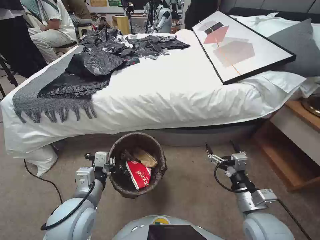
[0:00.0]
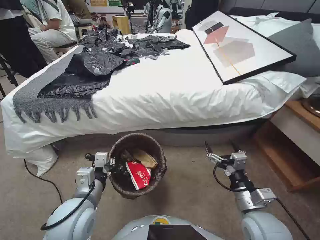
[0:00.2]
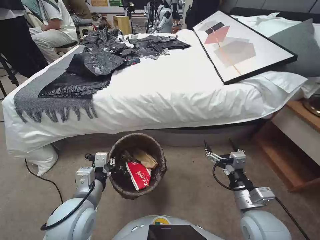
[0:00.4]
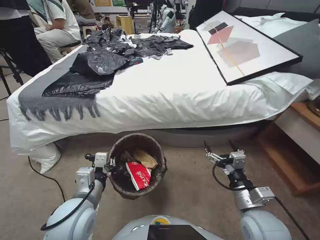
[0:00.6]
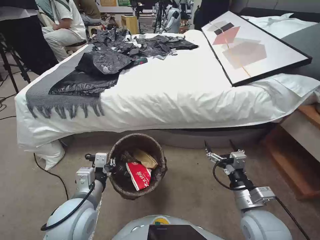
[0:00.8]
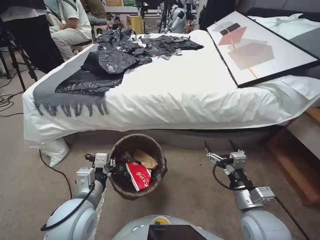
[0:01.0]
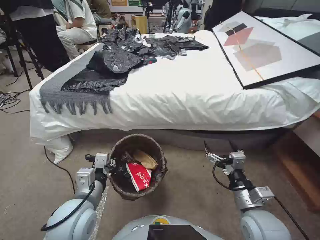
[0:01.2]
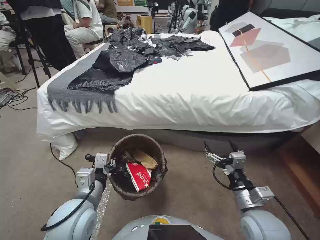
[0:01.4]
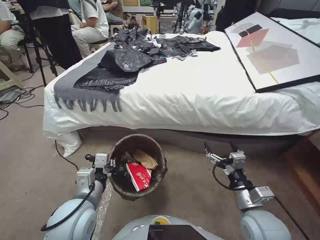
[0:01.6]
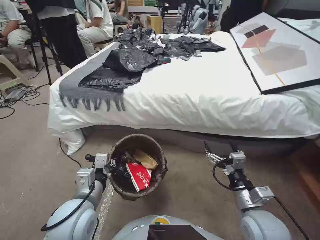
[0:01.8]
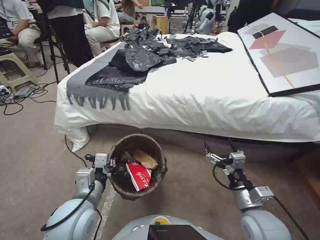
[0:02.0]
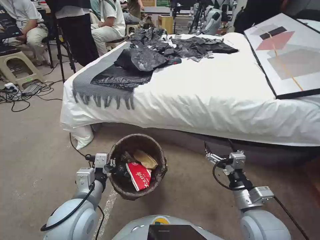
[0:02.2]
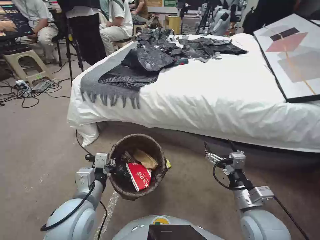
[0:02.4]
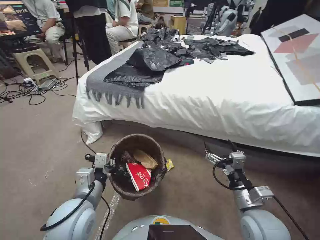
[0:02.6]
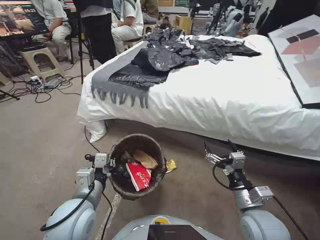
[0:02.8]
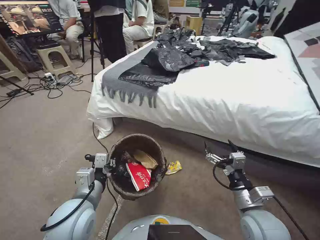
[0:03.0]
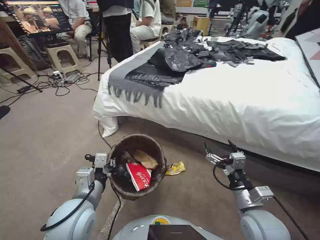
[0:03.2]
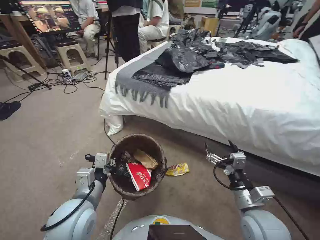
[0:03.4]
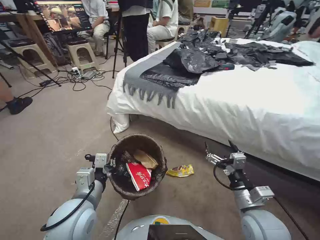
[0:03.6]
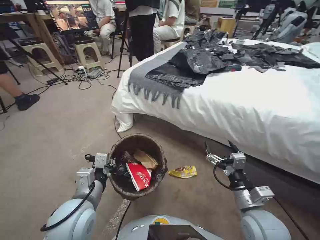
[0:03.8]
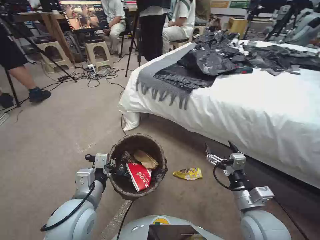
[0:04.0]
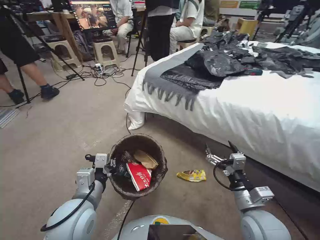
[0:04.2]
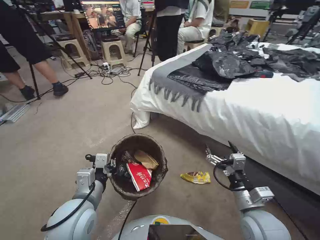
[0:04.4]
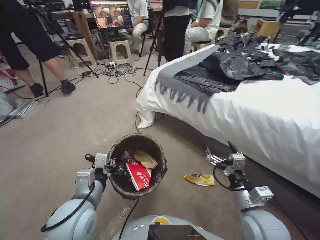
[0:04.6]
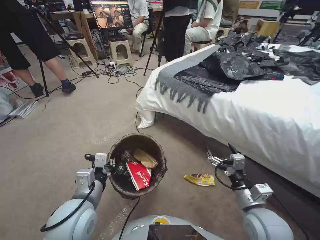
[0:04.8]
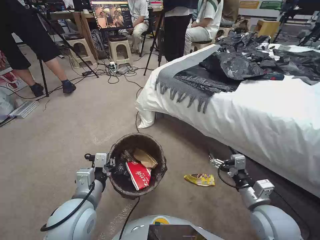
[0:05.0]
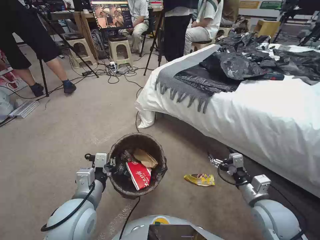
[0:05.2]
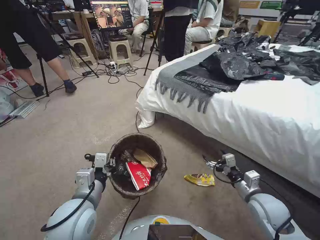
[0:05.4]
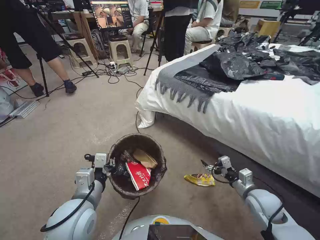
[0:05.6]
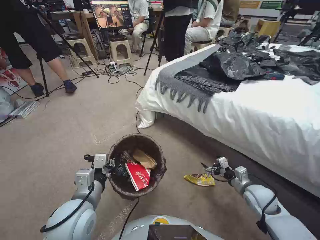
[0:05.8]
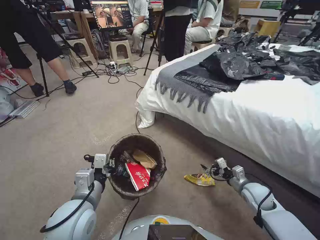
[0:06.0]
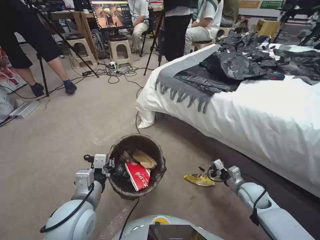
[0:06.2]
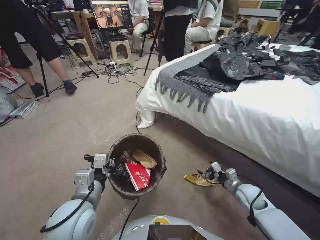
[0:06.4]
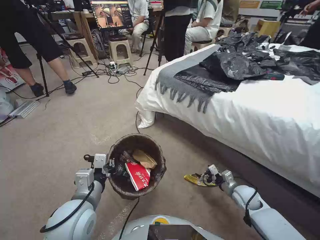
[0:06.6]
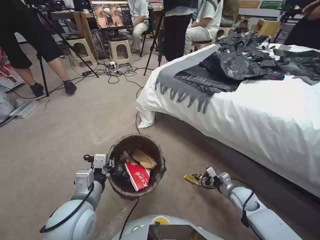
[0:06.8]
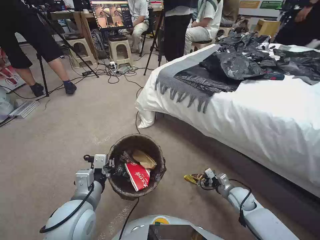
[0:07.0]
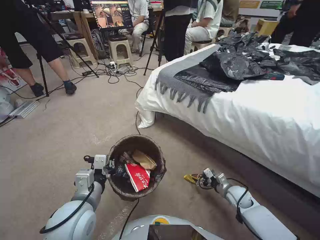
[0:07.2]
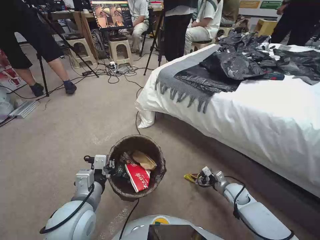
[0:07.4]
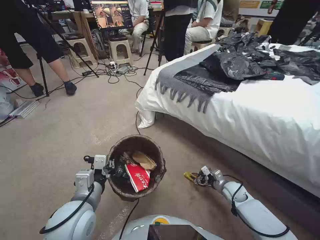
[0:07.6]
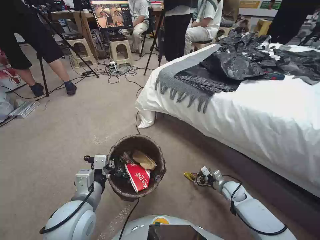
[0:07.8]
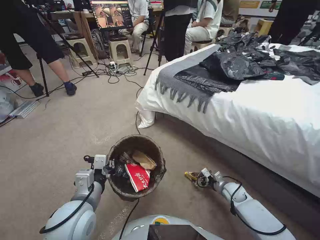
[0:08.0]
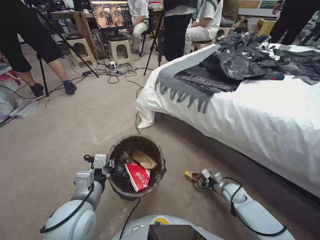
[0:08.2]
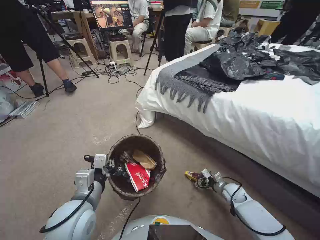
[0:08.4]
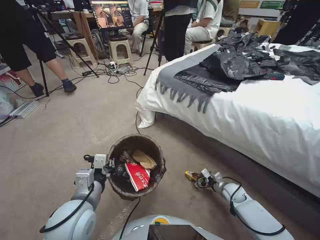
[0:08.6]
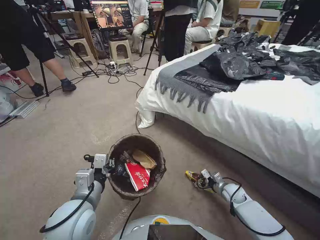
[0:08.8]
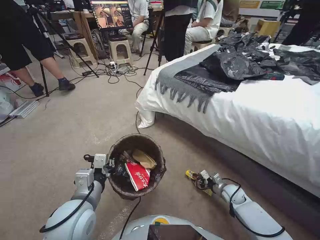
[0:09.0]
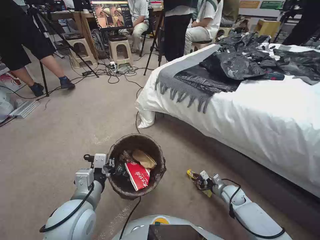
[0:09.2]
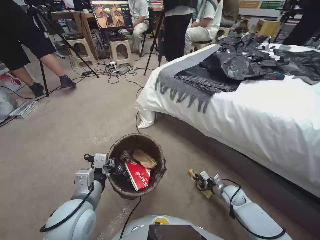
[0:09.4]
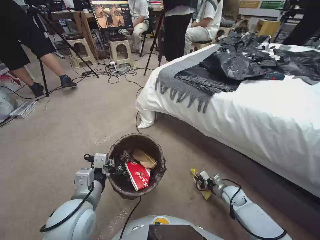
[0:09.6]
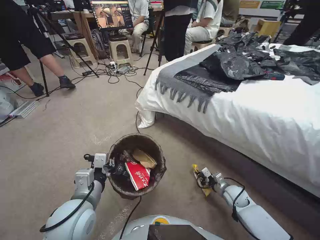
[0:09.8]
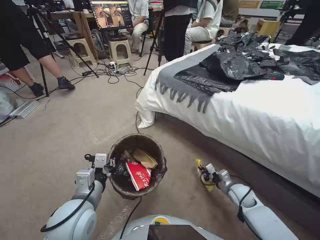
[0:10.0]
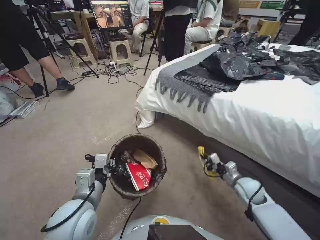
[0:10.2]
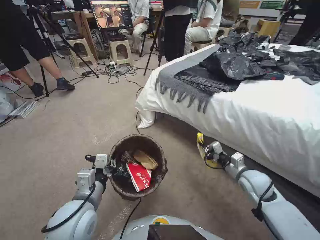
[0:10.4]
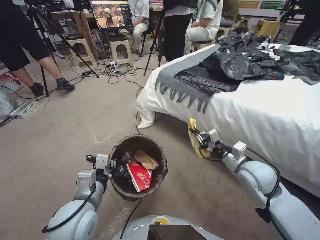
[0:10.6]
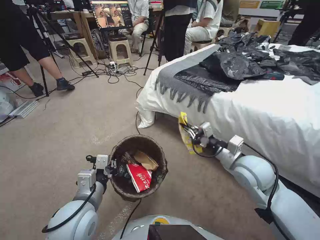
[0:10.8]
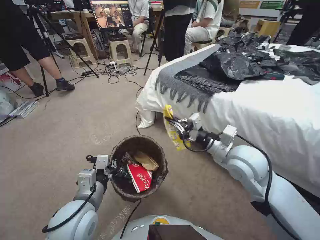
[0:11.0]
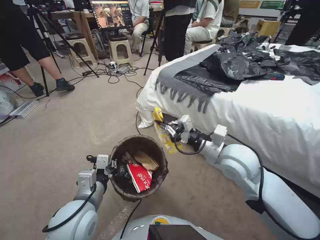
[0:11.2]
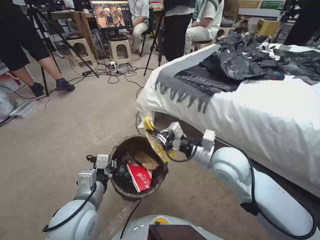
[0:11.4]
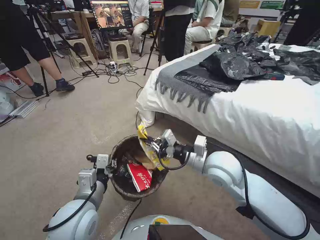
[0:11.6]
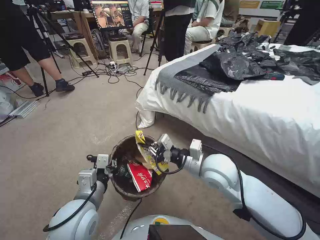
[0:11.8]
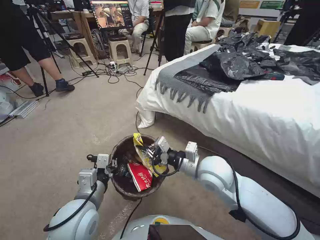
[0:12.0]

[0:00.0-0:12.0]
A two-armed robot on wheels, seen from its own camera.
Task of the whole recording: Pick up the trash bin, then pick up the garbage from the floor and place it into the trash bin.
0:04.4 to 0:06.0: The right gripper heads to the right, downward and forward, covering some 20 cm.
0:06.0 to 0:07.6: The right gripper is displaced downward by some 10 cm.
0:07.6 to 0:09.0: There are only small adjustments of the grippers.
0:09.0 to 0:10.4: The right gripper is displaced upward by some 20 cm, and closes.
0:10.4 to 0:12.0: The right gripper shifts approximately 25 cm to the left and upward.

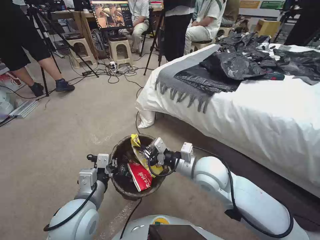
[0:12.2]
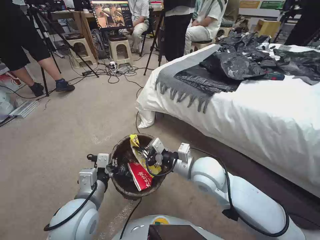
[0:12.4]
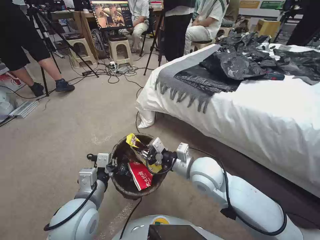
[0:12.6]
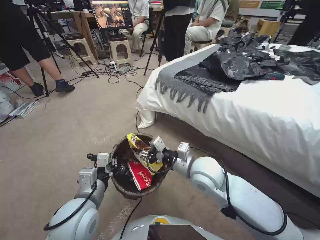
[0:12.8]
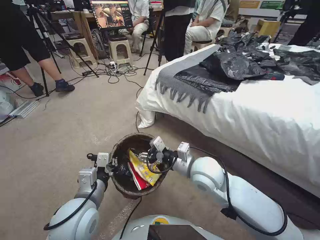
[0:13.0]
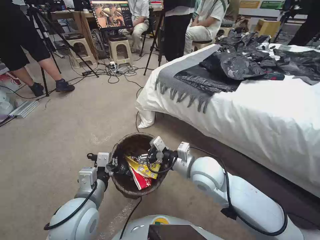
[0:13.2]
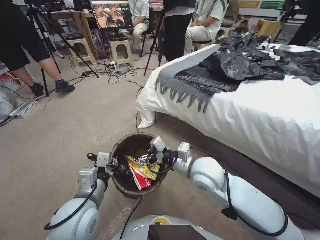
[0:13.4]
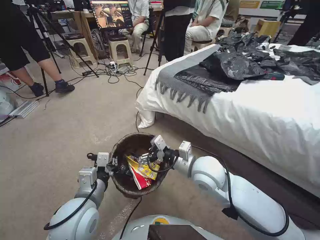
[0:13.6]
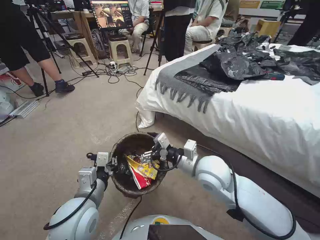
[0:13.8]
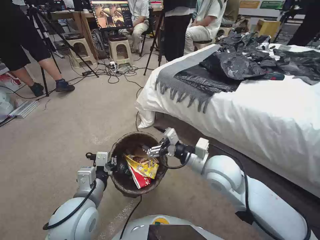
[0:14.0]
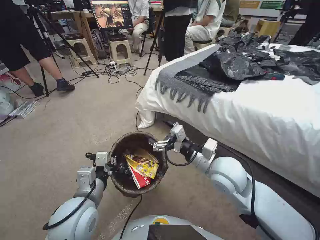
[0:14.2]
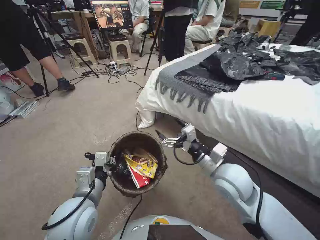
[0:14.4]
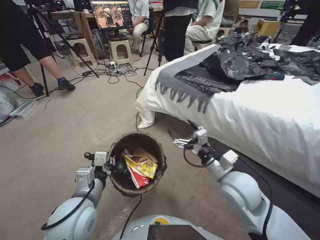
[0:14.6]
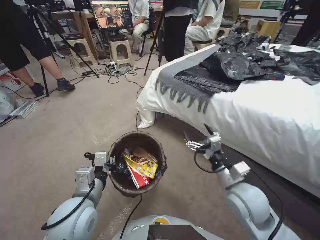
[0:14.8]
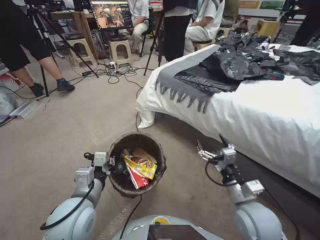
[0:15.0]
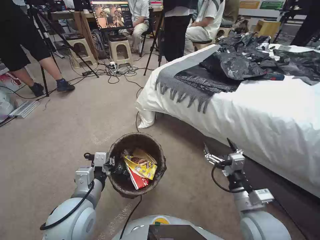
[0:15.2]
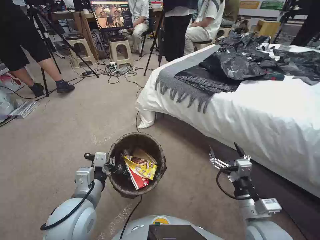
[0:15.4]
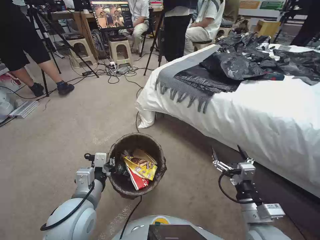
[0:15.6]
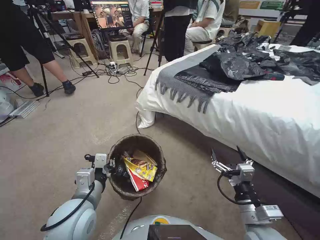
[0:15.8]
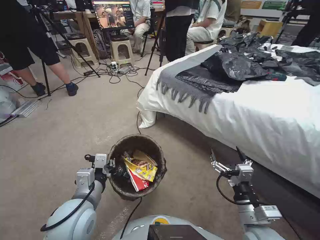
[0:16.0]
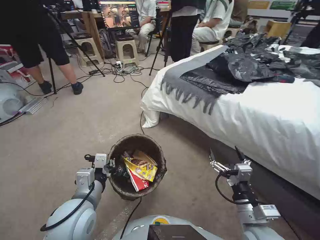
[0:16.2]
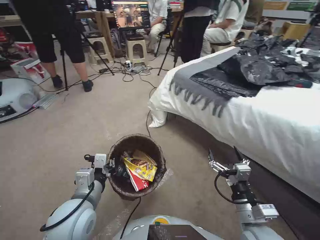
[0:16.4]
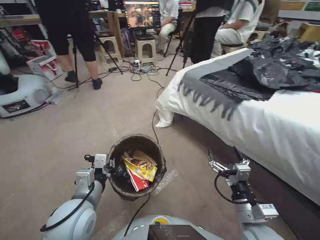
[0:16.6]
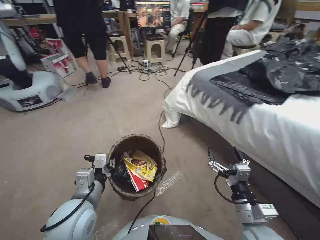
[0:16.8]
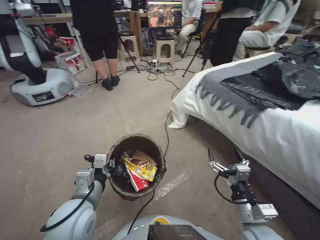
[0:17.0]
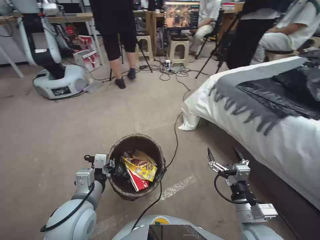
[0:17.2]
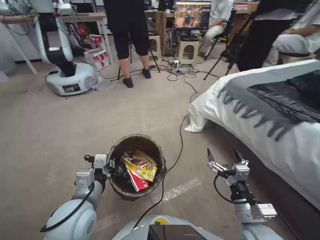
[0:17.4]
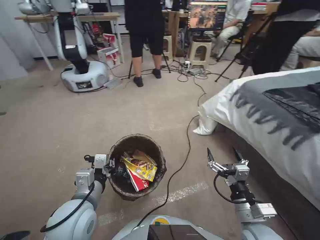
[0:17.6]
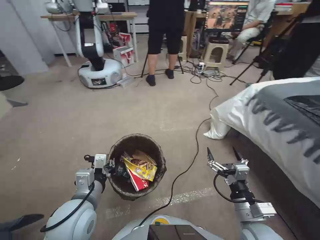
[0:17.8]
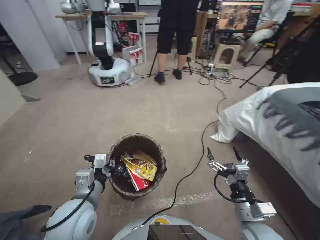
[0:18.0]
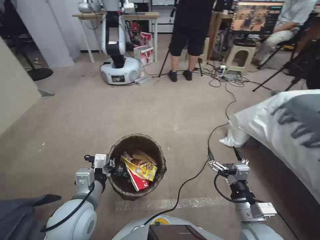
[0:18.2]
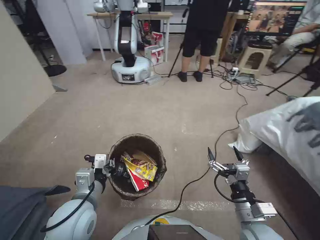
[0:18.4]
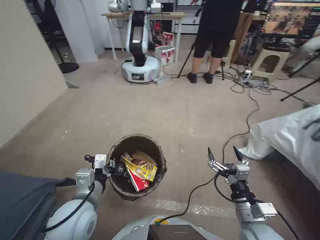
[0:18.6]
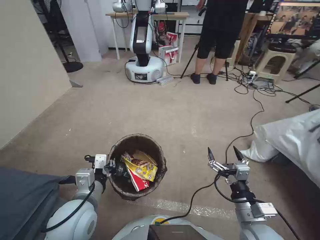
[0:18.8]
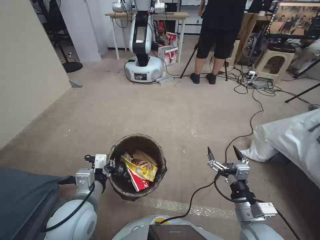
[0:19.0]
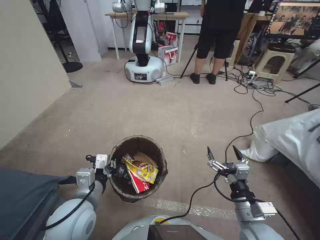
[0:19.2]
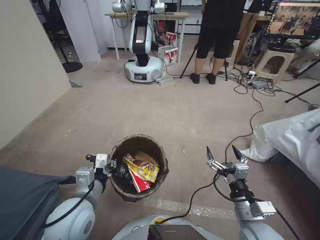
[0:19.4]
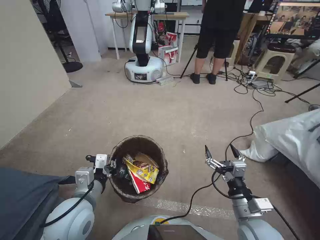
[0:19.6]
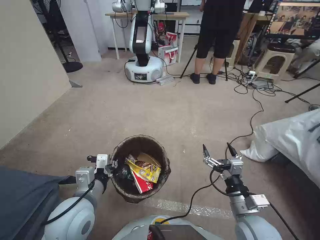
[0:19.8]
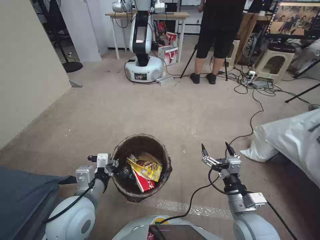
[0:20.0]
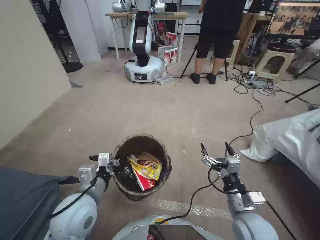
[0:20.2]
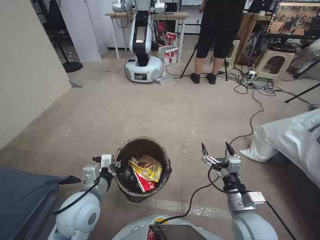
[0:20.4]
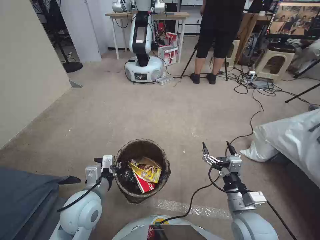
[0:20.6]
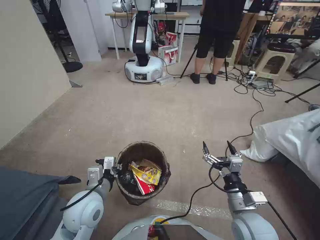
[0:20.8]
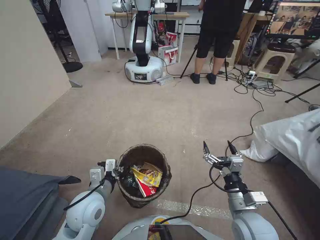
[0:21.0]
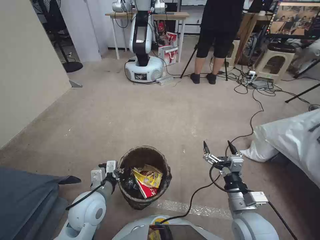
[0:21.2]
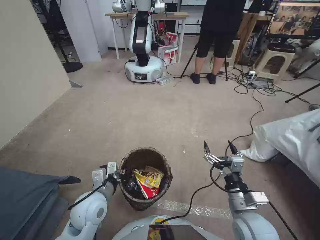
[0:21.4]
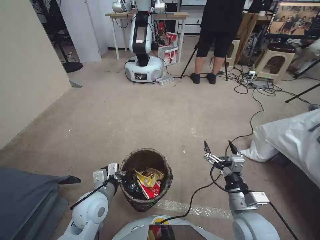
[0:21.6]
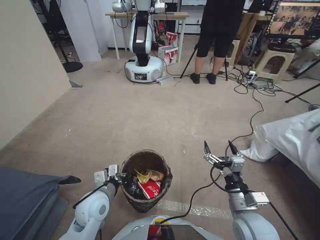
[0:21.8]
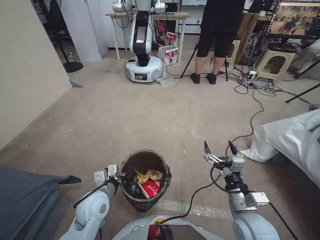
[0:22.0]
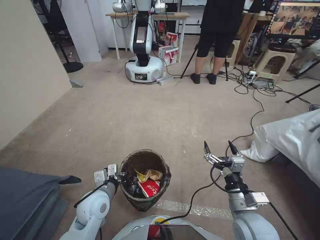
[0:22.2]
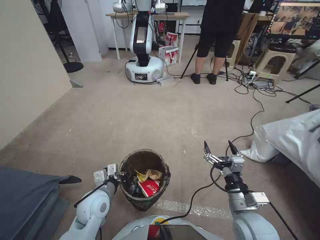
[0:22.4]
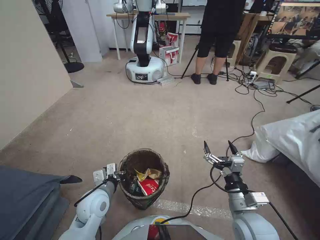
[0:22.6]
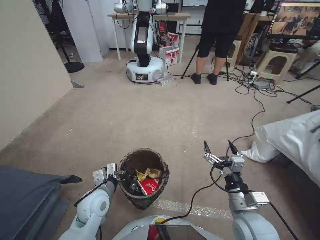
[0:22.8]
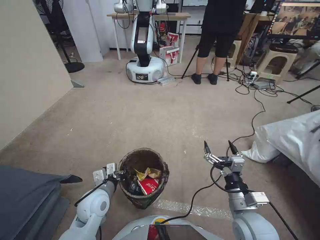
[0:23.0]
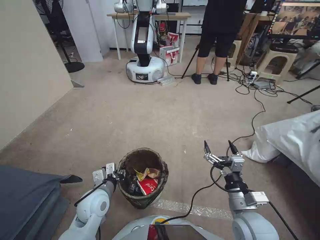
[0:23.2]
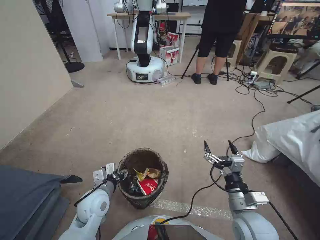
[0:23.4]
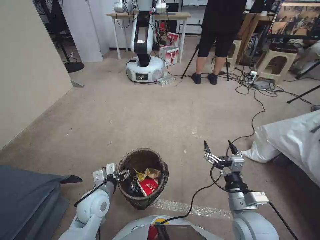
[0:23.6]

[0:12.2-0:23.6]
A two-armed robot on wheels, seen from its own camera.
Task of the whole recording: Pick up the trash bin, then pick up the garbage from the floor and place it into the trash bin.
0:12.2 to 0:13.6: The right gripper opens.
0:13.6 to 0:15.0: The right gripper heads to the right and backward, covering some 15 cm.
0:15.0 to 0:16.4: The right gripper shifts roughly 5 cm backward.
0:19.4 to 0:20.8: The left gripper moves approximately 5 cm.
0:20.8 to 0:22.2: The left gripper shifts approximately 5 cm downward.
0:22.2 to 0:23.6: The left gripper opens up.
